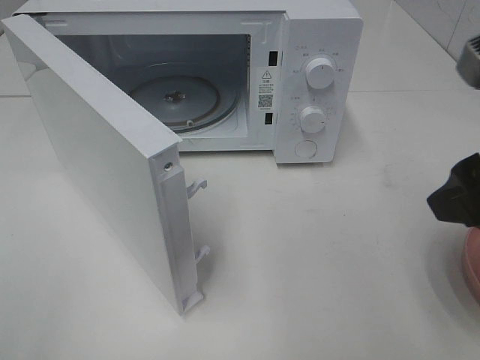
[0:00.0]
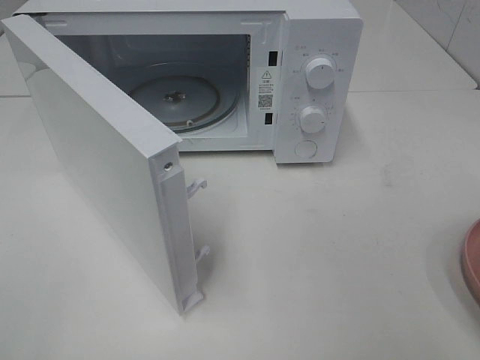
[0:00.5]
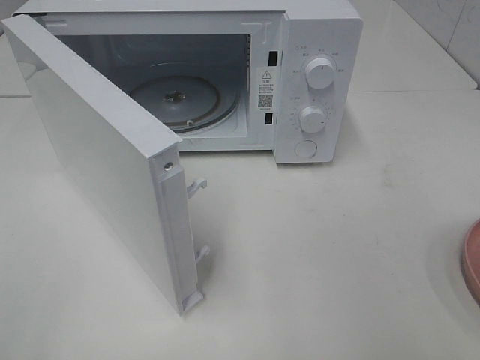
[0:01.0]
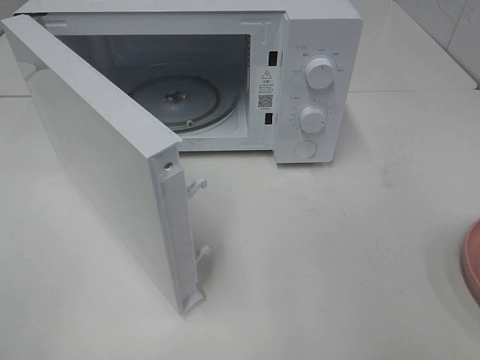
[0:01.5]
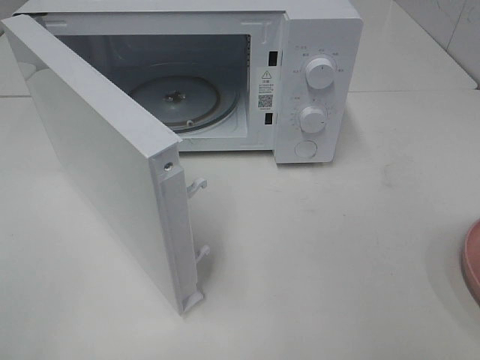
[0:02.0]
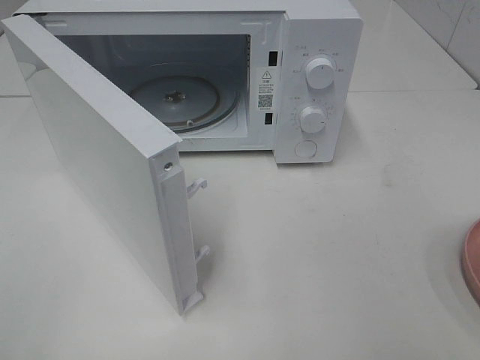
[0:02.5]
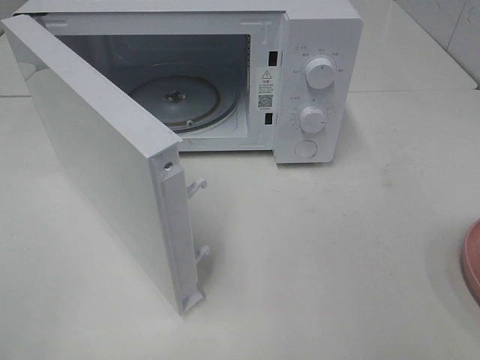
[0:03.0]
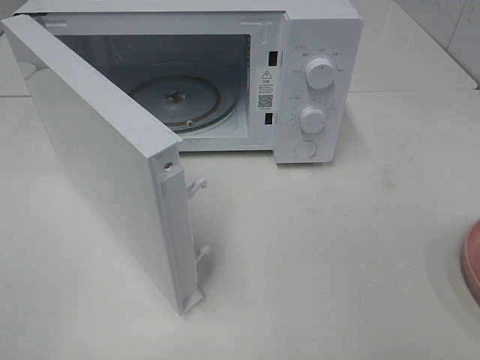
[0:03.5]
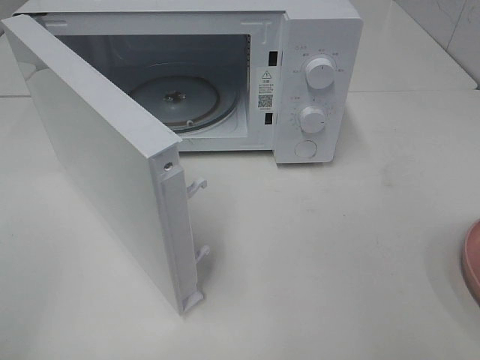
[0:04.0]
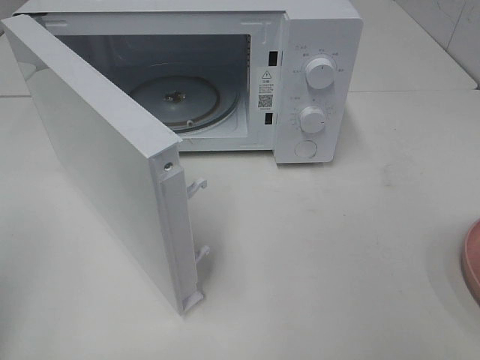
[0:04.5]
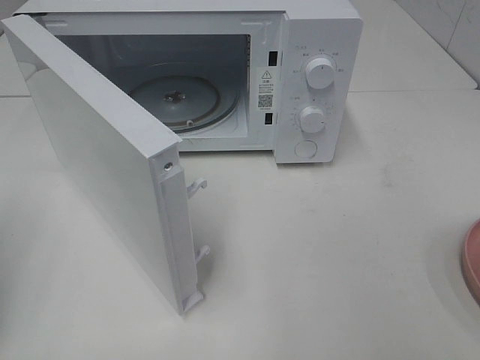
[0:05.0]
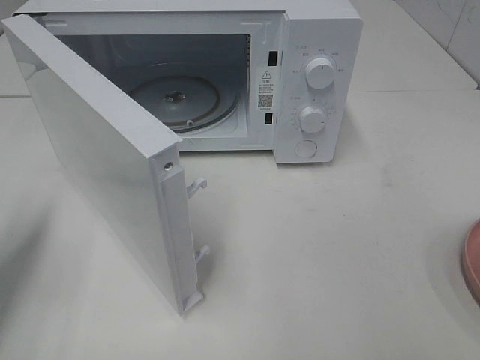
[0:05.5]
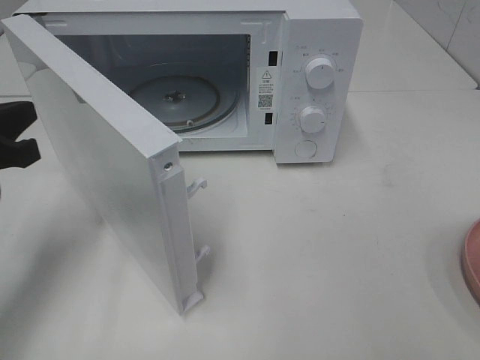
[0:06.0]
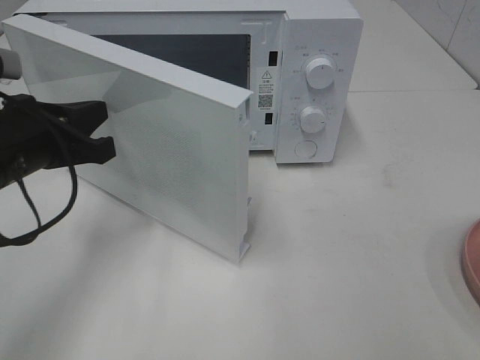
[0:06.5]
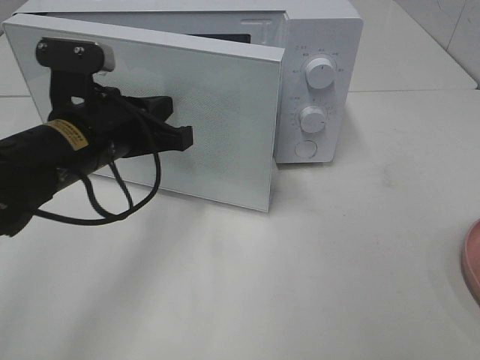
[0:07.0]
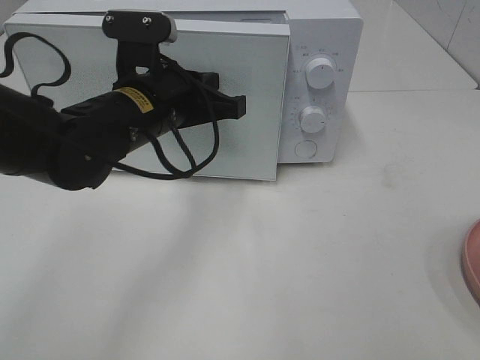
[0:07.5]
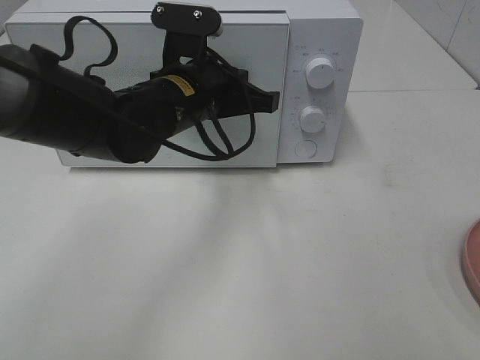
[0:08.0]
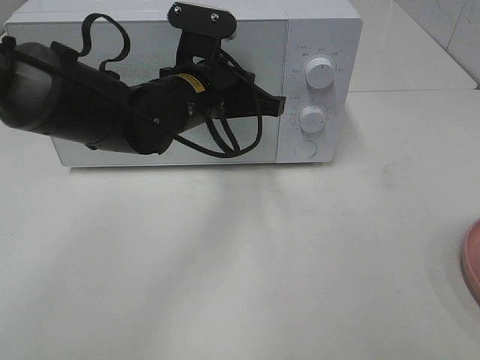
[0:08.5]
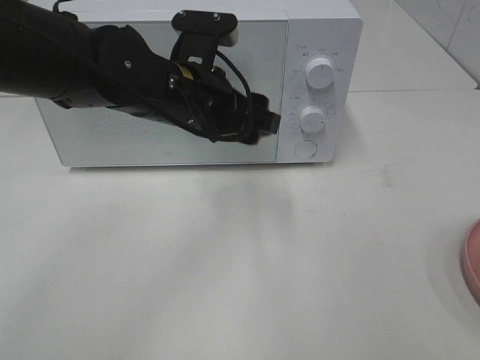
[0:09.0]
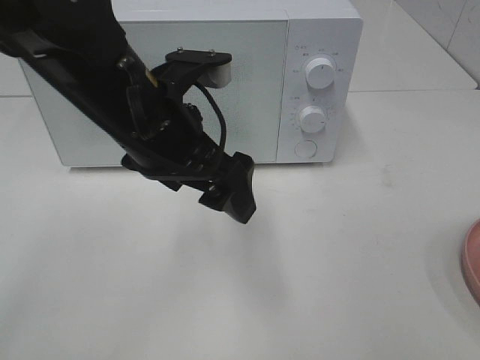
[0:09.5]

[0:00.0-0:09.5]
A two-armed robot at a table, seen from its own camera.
Task of the whole recording: Heat the burger.
Step, 0:00.0 to 0:08.5: Left hand: close the microwave door.
0:00.0 to 0:02.0: The right gripper is displaced backward and to the right by about 15 cm.
0:04.0 to 0:05.5: The left gripper moves forward and downward, about 20 cm, and closes.
0:05.5 to 0:07.5: The left gripper heads to the right and forward, covering about 25 cm.
0:07.5 to 0:09.5: The left gripper moves backward, approximately 5 cm, and opens up.

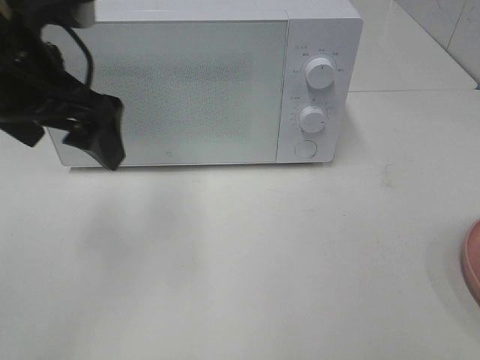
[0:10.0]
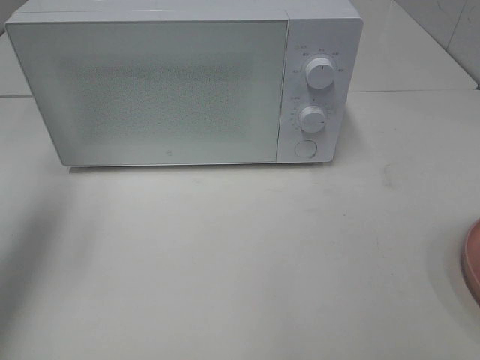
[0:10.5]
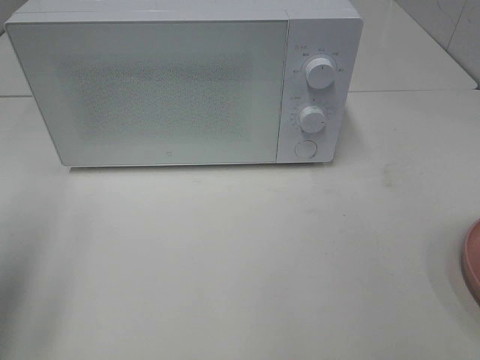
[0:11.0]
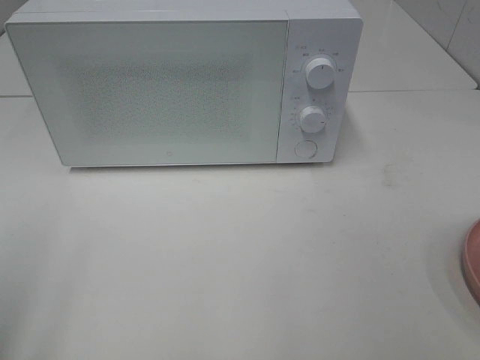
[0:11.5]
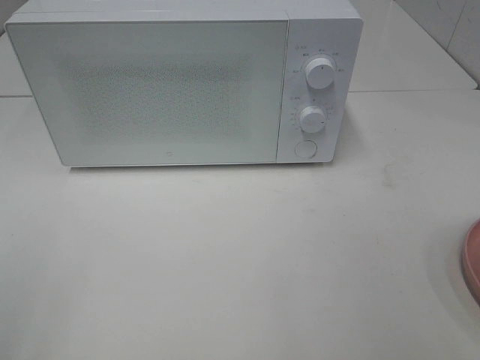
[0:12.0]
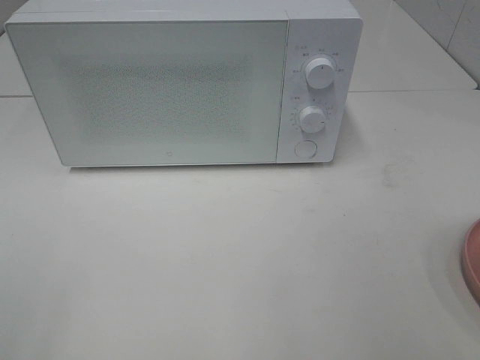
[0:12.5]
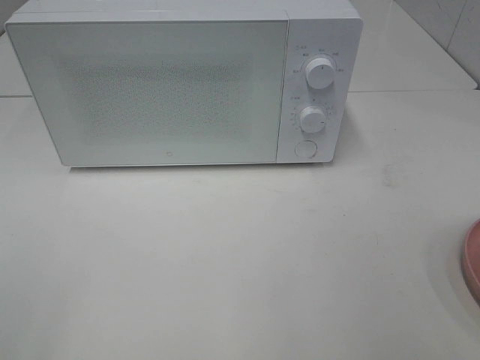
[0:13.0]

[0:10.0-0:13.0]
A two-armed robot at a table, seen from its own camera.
Task of the whole recording: Heat the burger.
0:10.0 to 0:11.5: The left gripper heads backward and to the left, covering approximately 25 cm.

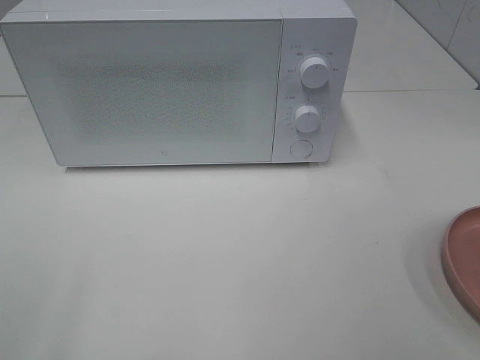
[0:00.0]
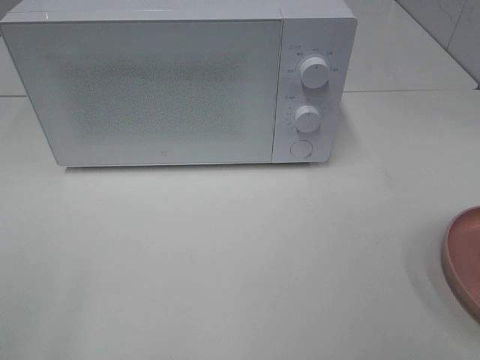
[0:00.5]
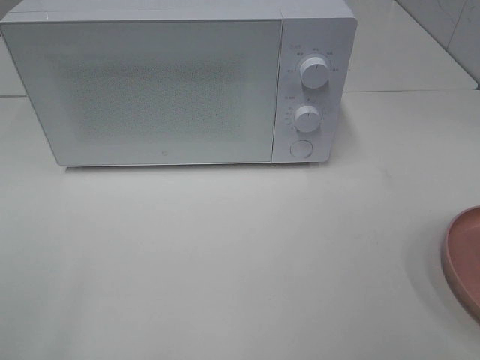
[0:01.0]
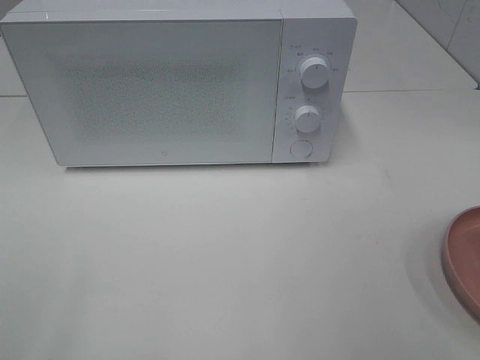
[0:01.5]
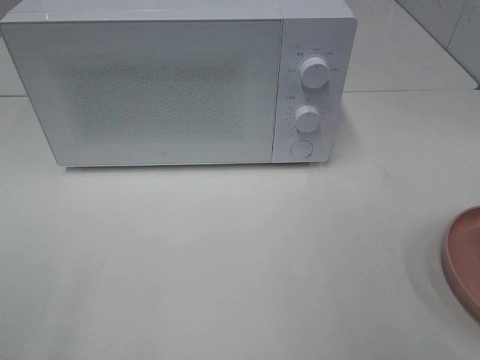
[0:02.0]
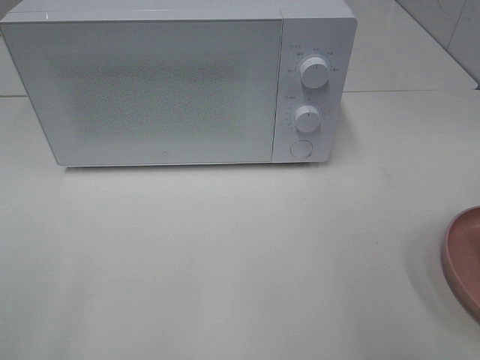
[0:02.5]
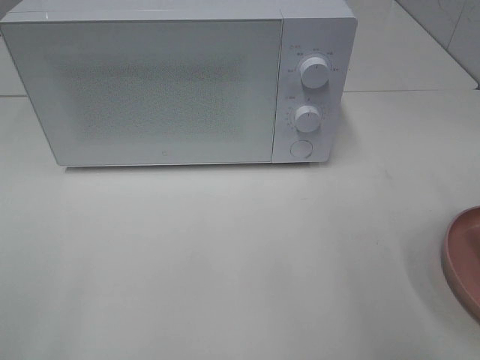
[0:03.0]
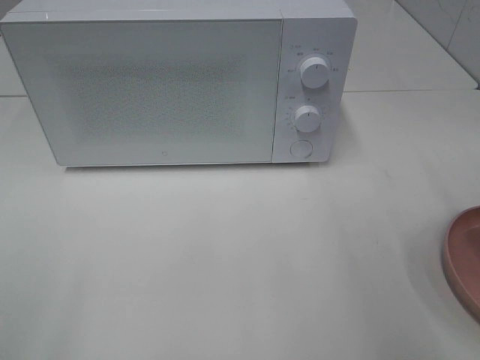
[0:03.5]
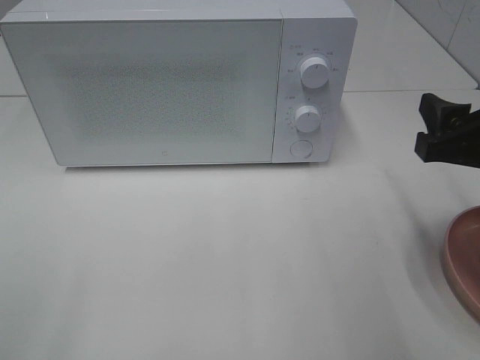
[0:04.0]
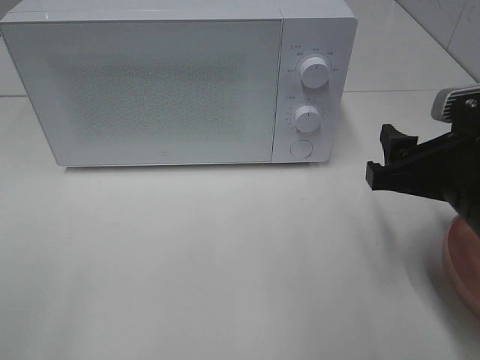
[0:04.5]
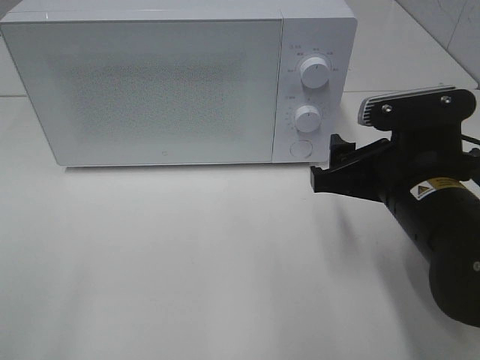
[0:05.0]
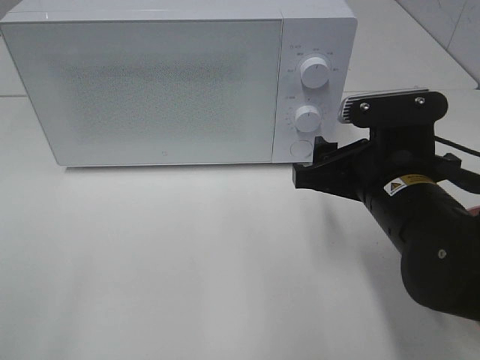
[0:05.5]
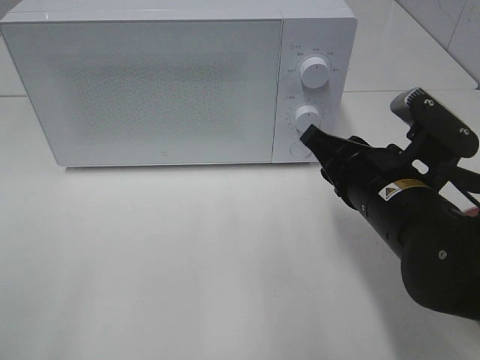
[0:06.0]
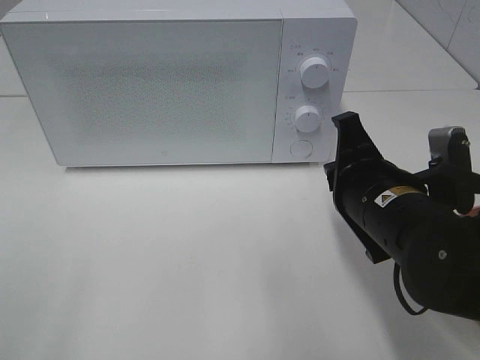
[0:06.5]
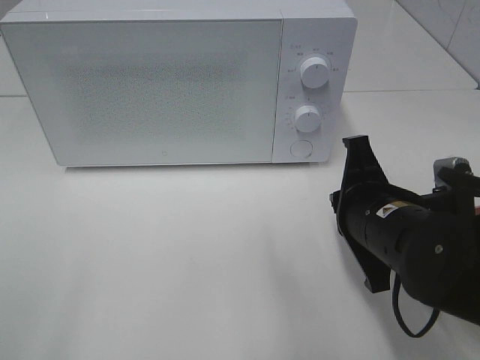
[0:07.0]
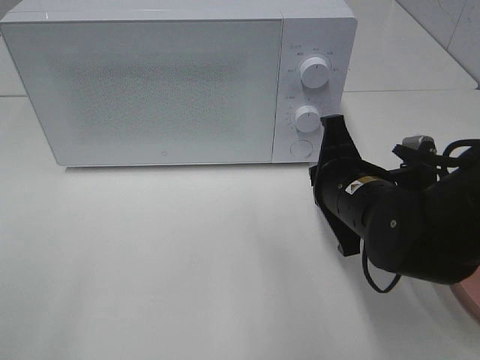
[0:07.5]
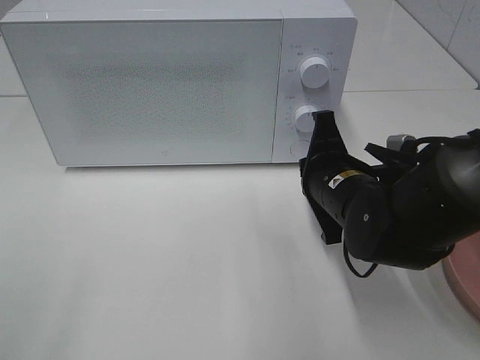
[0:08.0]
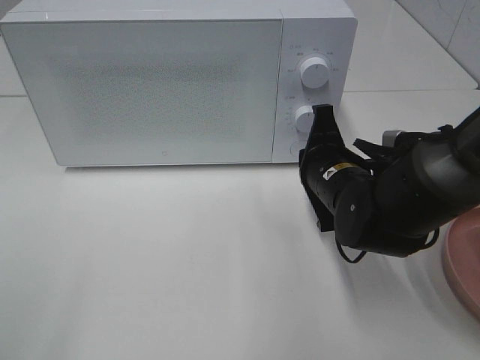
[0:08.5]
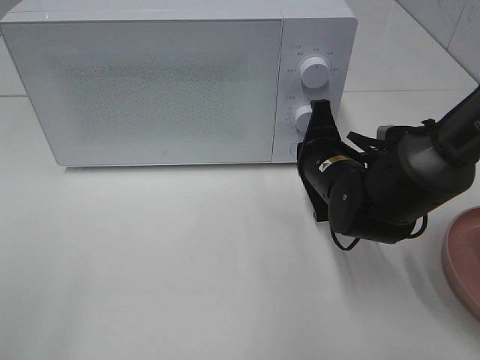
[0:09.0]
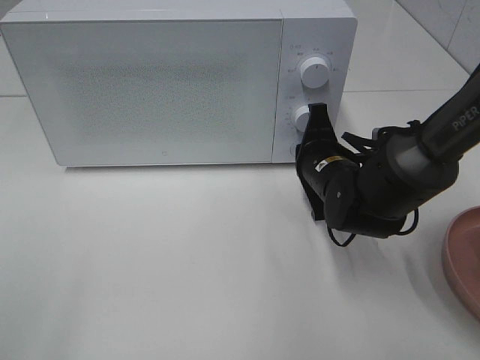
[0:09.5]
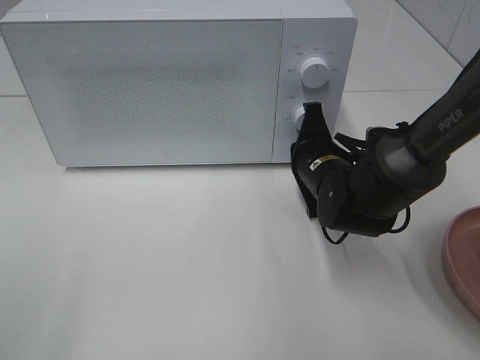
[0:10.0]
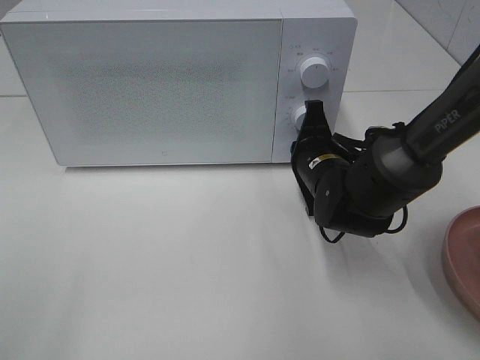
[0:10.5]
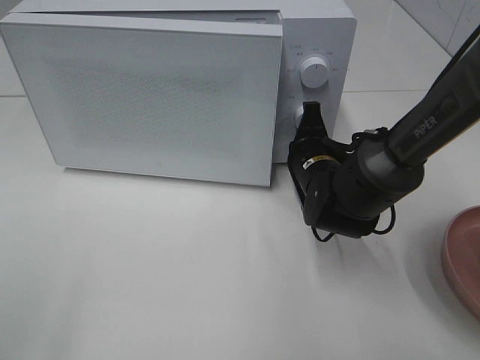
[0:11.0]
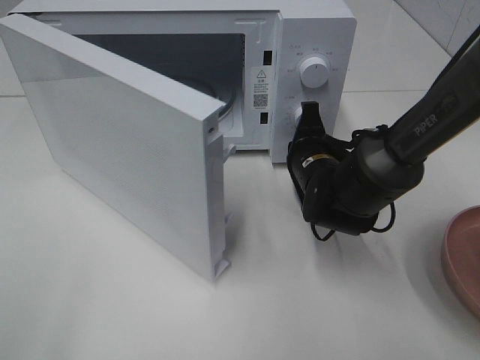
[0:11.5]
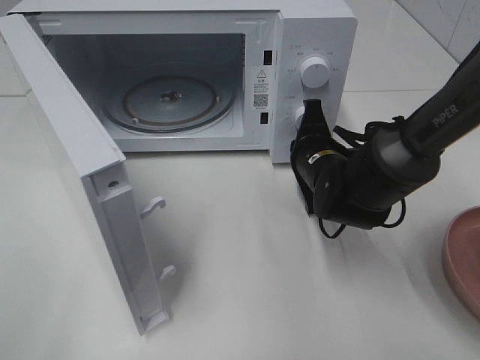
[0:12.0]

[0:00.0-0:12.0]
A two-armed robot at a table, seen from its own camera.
Task of the whole recording: Heat the burger.
0:02.0 to 0:04.0: The right gripper is displaced forward and downward by approximately 15 cm.
0:04.0 to 0:06.0: The right gripper is displaced to the left and downward by roughly 10 cm, and closes up.
0:06.0 to 0:08.0: The right gripper goes approximately 5 cm forward.
0:08.0 to 0:10.0: The right gripper travels forward by about 5 cm.

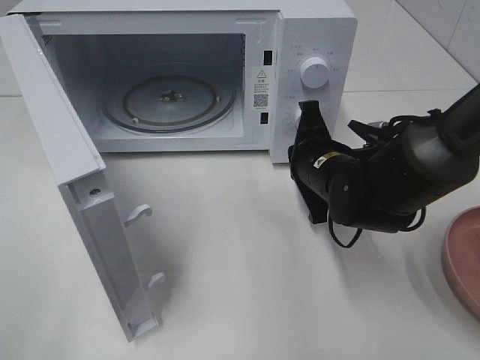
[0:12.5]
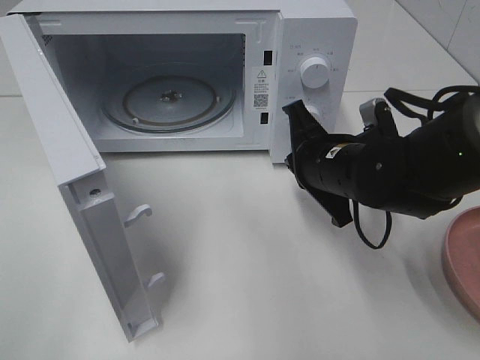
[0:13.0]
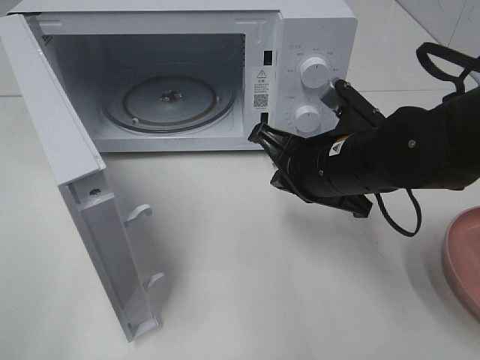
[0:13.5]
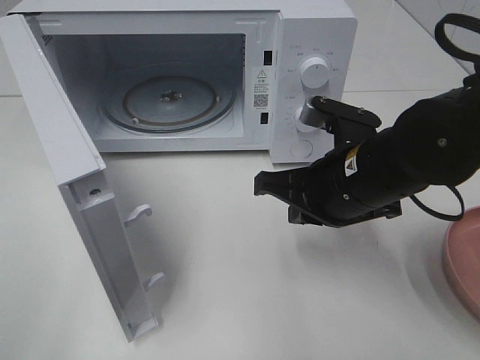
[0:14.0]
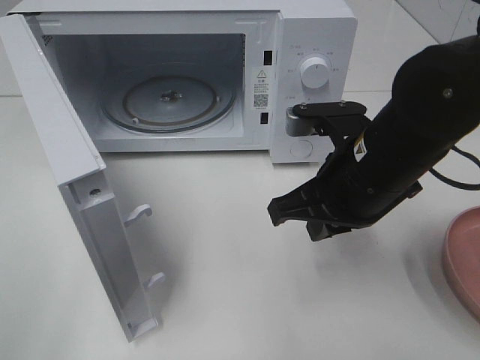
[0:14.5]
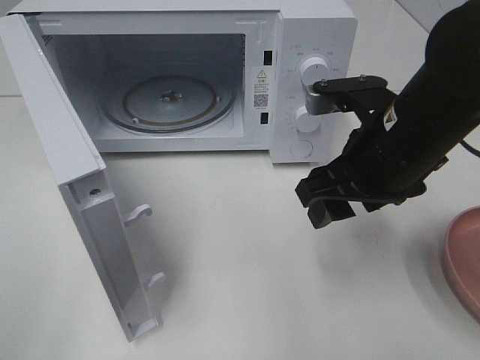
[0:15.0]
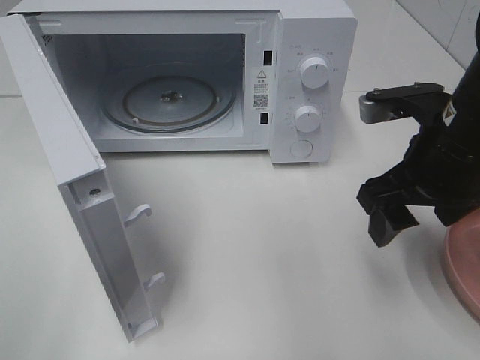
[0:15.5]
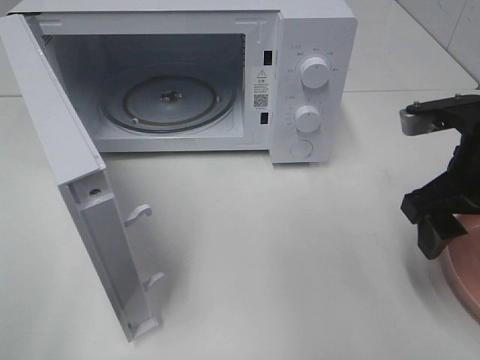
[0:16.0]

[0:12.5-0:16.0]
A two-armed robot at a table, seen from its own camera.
Task of the whole recording: Heat the burger.
0:12.5 to 0:14.5: The right gripper travels upward and backward by some 10 cm.
0:14.5 to 0:16.0: The right gripper goes some 10 cm to the right, and opens its fingers.
